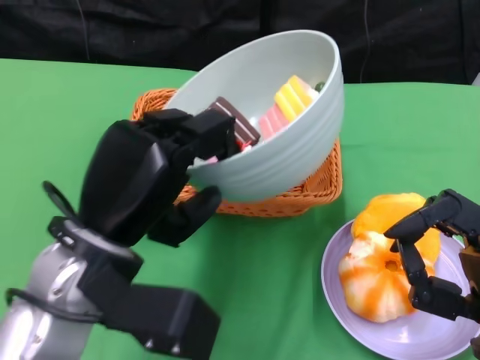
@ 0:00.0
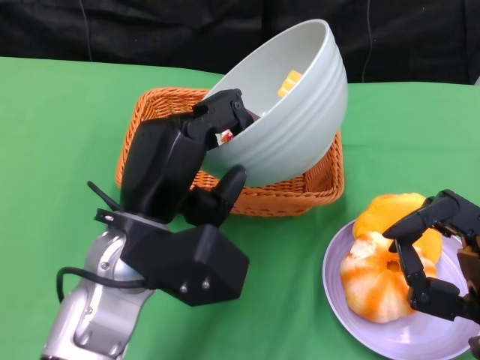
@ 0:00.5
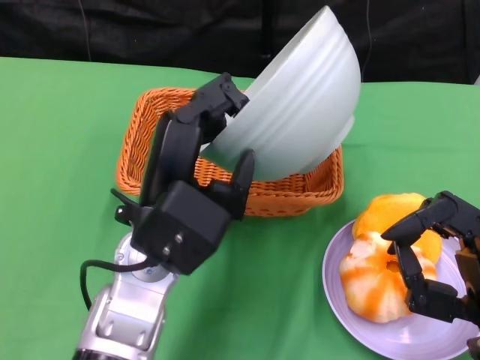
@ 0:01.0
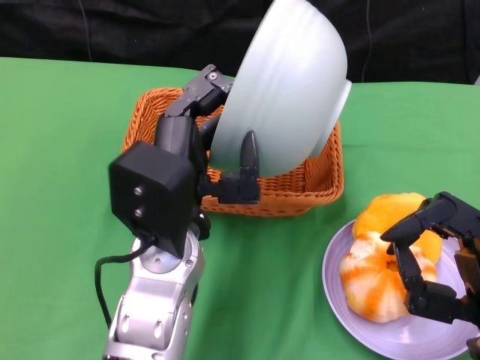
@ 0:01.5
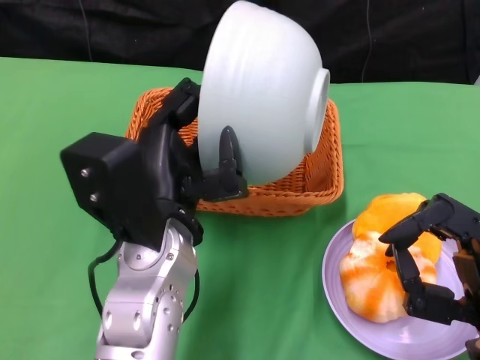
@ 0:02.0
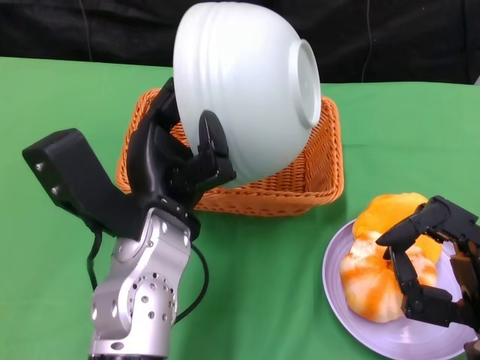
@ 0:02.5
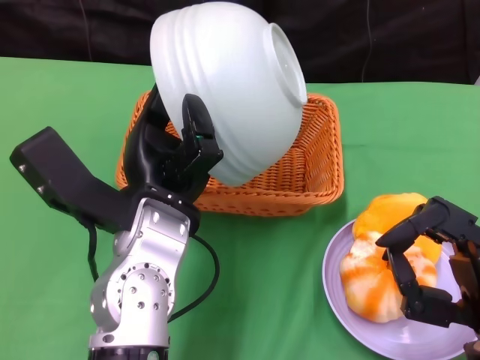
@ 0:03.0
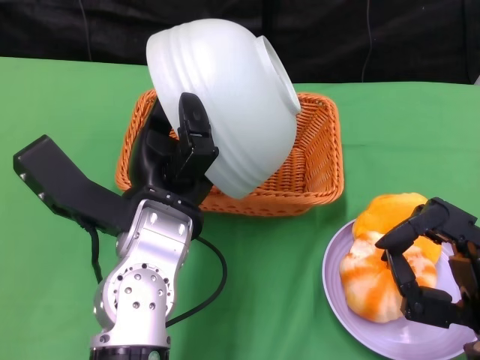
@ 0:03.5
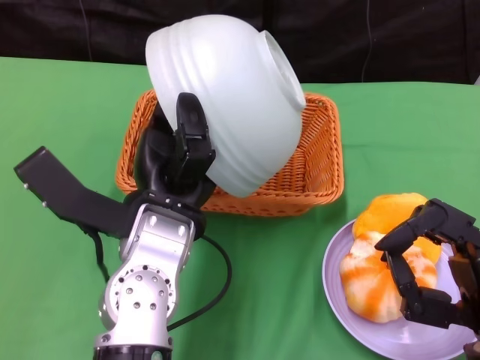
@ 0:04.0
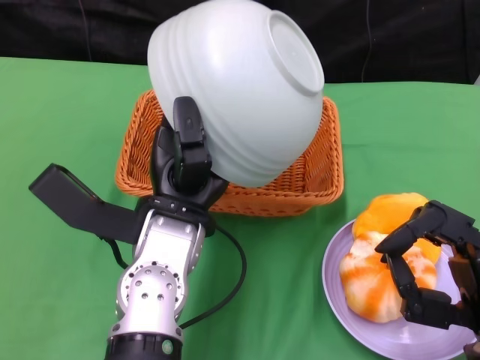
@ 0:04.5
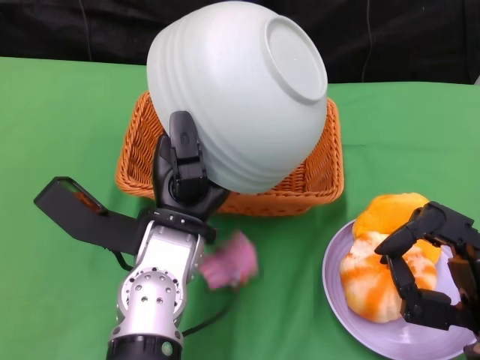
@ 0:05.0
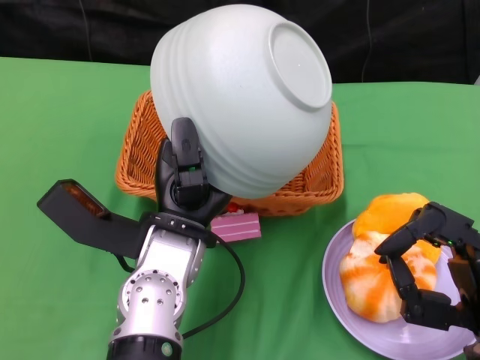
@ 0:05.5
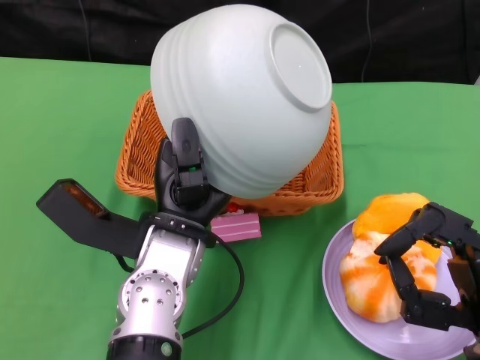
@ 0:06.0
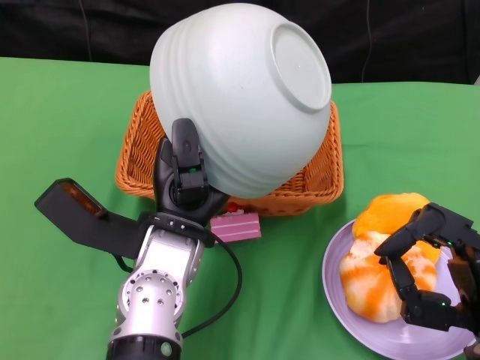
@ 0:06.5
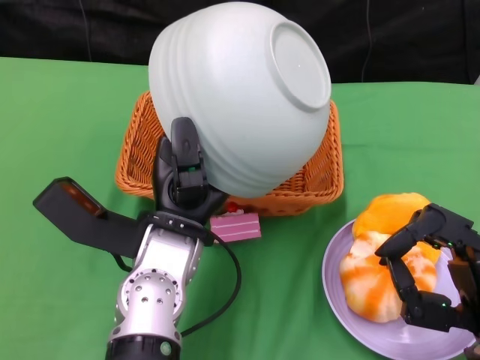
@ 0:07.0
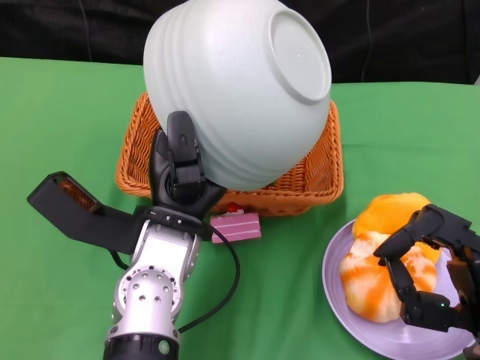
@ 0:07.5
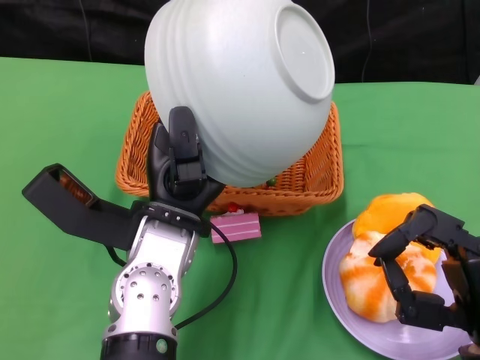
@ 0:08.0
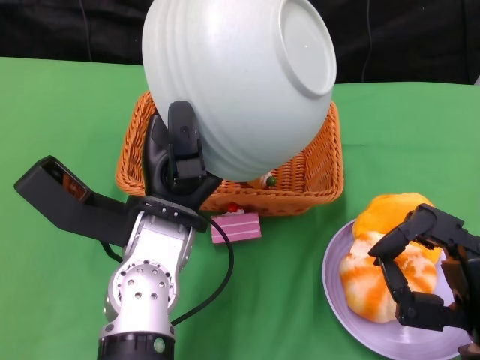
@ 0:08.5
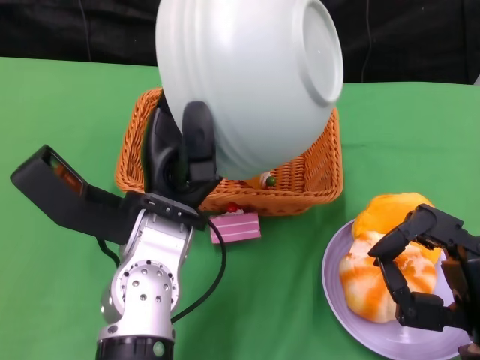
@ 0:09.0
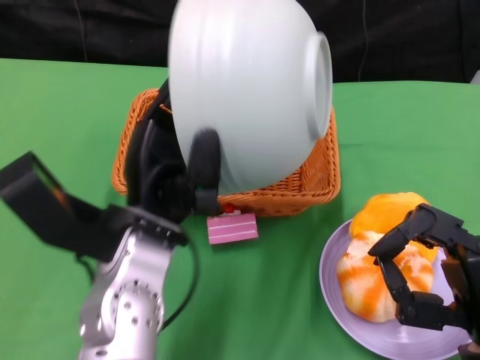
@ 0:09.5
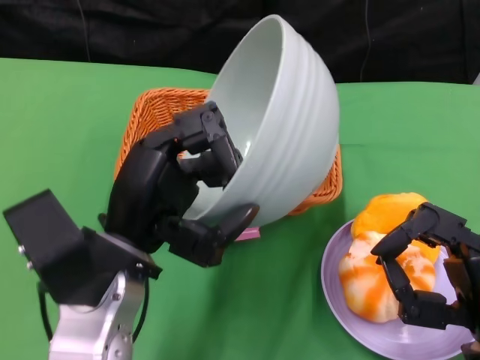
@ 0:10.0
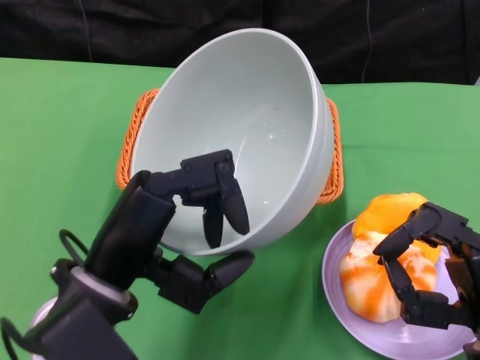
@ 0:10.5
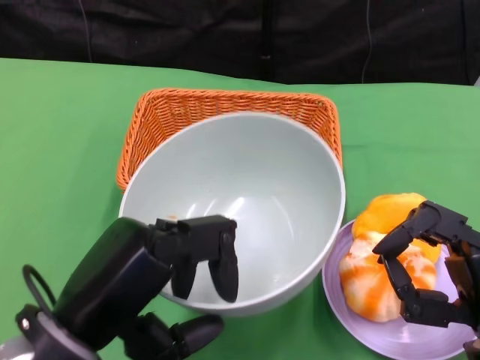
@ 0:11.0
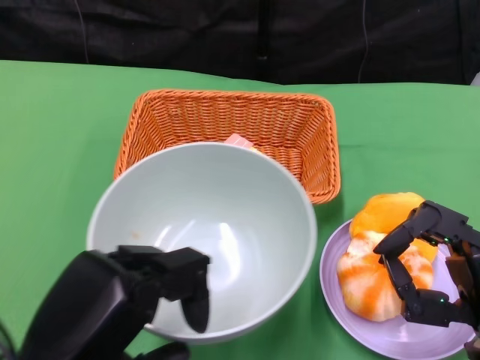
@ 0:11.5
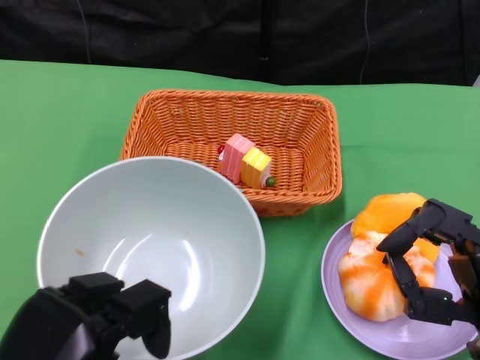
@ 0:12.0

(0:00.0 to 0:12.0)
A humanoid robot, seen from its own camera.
Step, 0:00.0 - 0:09.0: Pour the cake into the basket with the left gripper.
0:00.0 - 0:02.0: The left hand goes about 5 cm to the right.
0:06.0 - 0:08.0: The hands make only small movements.
0:08.0 - 0:10.0: The left hand shifts about 5 cm to the left.
0:10.0 - 0:12.0: The left hand goes roughly 15 cm backward and to the left.

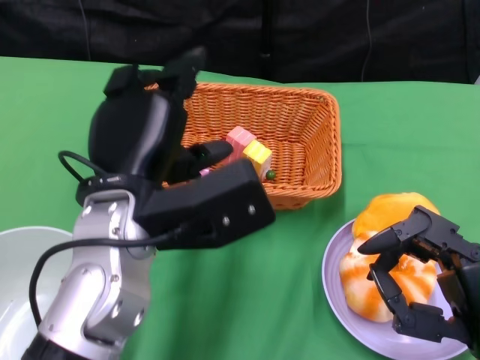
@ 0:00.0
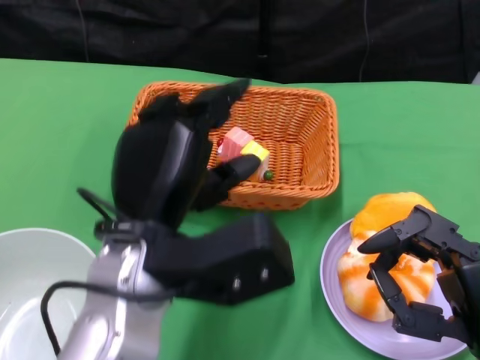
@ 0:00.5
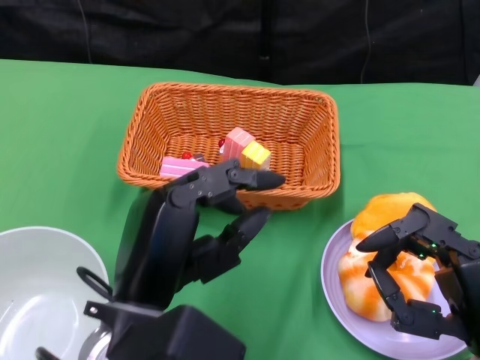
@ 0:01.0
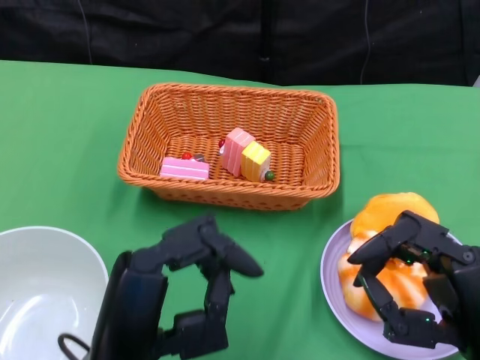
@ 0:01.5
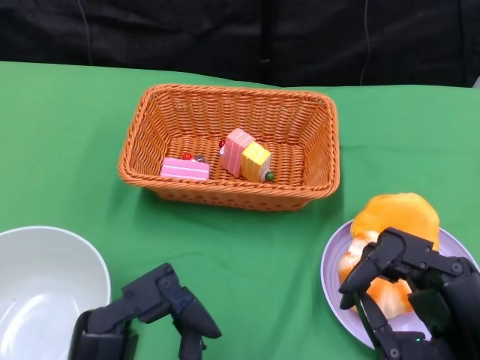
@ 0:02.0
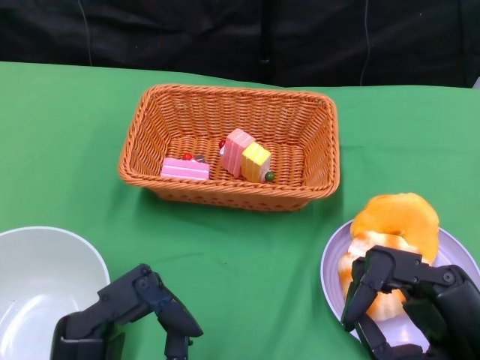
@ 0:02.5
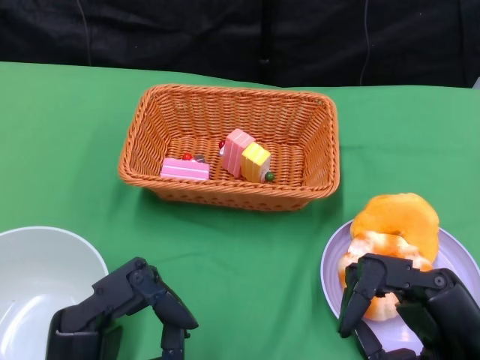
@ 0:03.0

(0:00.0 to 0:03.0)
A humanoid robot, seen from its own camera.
0:00.0 - 0:01.5: The left hand goes about 10 cm backward.
0:01.5 - 0:03.0: The hands make only small movements.

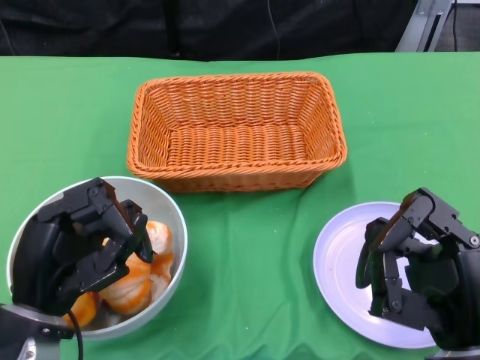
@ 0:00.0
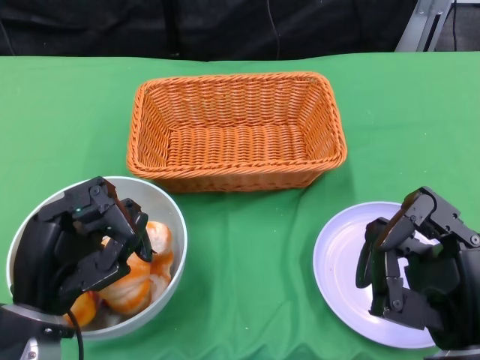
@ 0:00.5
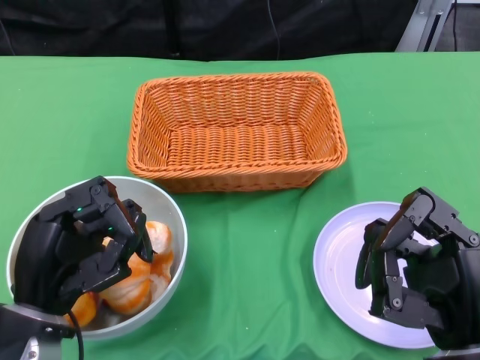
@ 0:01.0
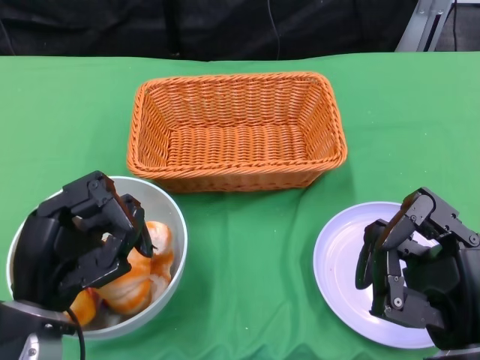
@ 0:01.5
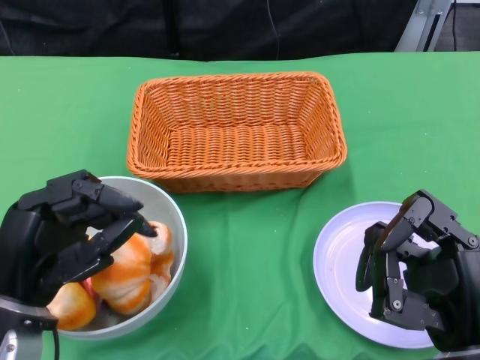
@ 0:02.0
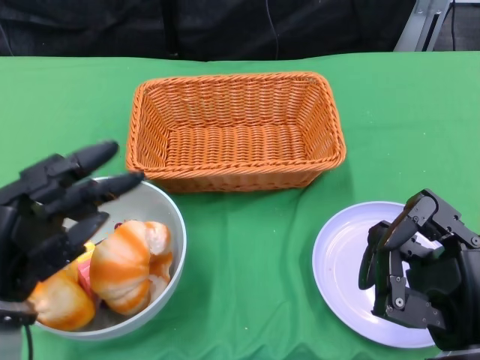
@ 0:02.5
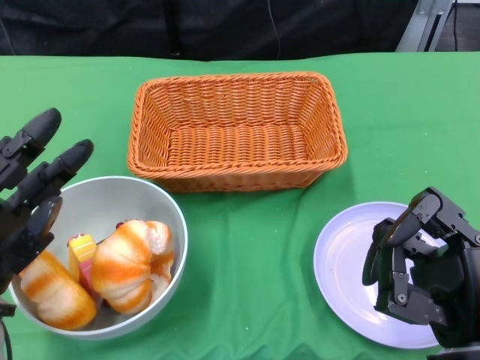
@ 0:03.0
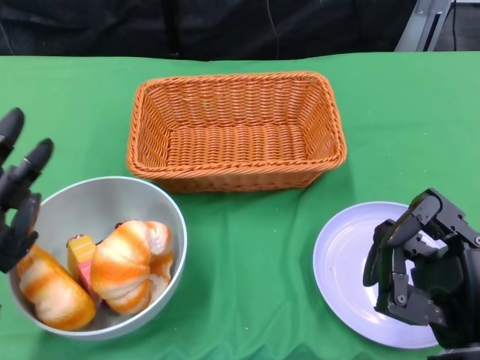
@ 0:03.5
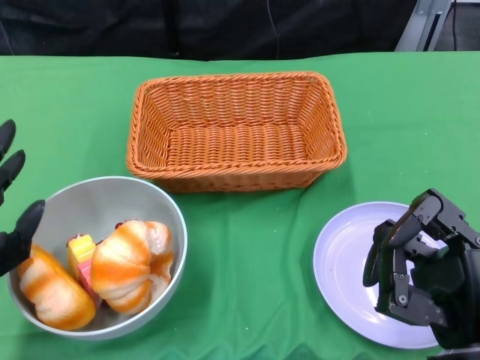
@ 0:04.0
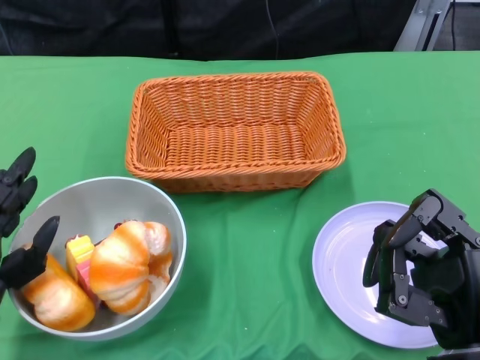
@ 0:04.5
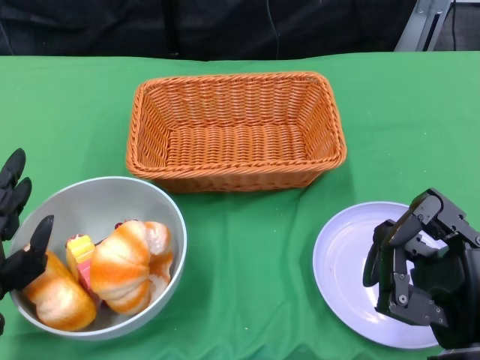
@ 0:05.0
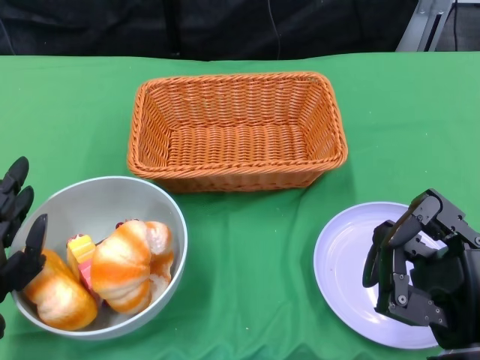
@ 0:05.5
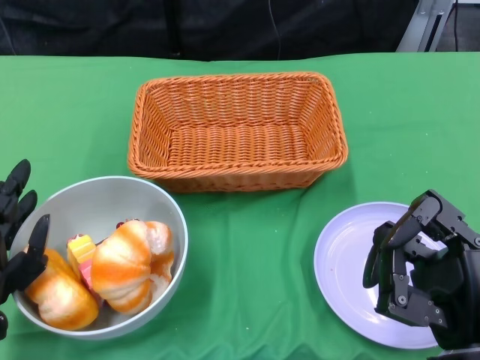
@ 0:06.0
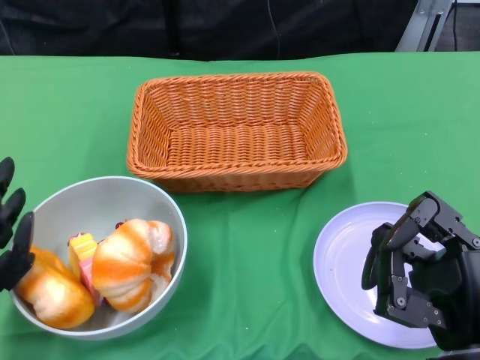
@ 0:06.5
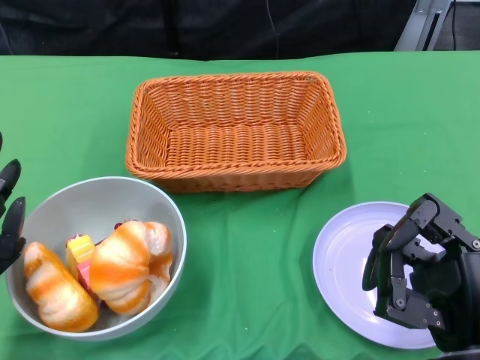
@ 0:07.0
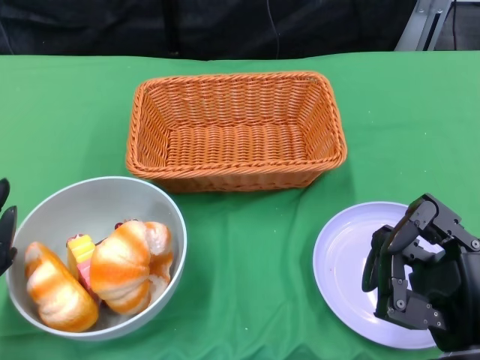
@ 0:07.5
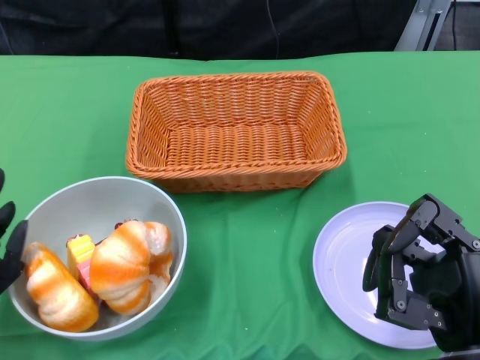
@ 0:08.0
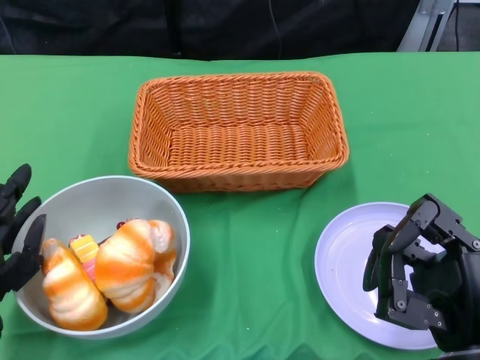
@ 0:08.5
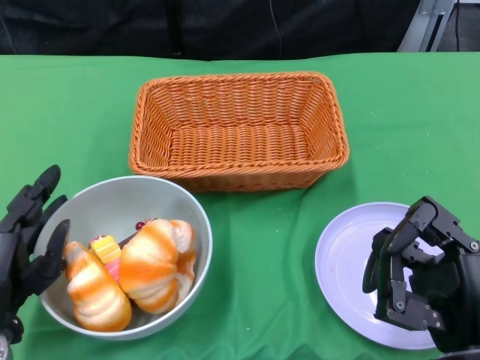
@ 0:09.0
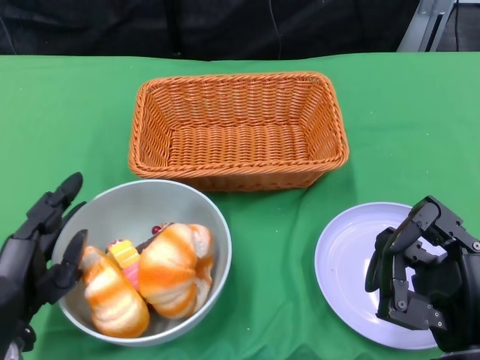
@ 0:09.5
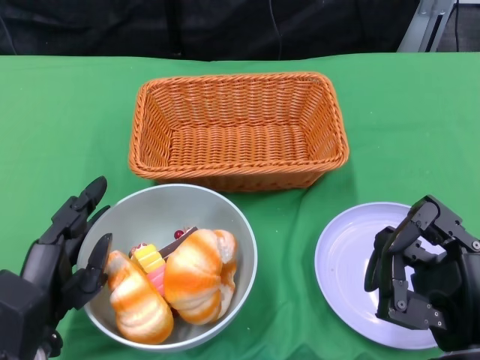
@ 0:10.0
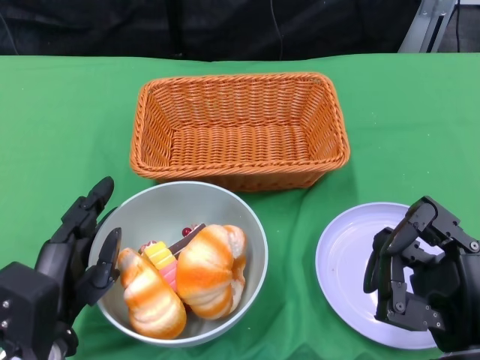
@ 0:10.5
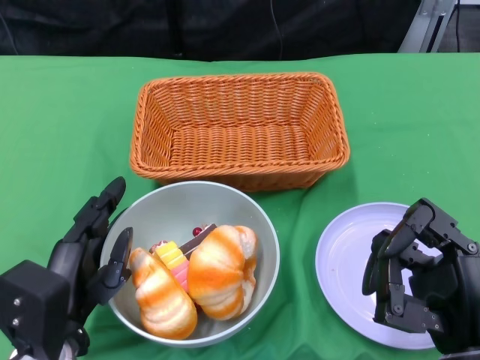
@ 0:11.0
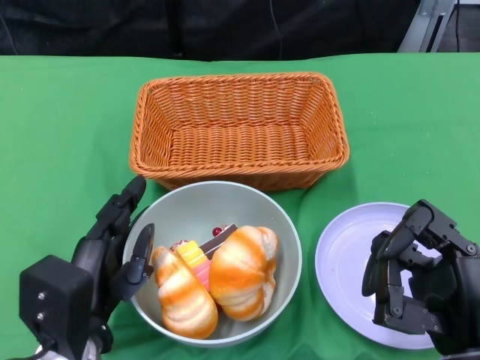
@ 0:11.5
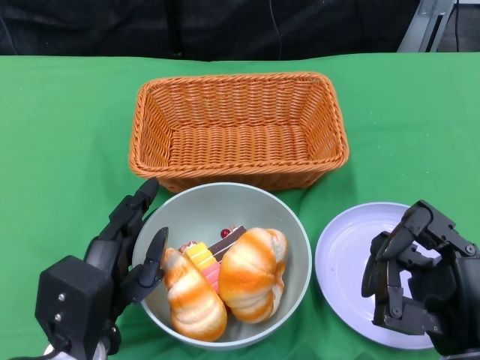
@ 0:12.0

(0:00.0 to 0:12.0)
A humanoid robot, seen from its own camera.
0:02.0 - 0:04.0: The left hand shifts some 5 cm to the left.
0:04.0 - 0:08.0: The hands move only a little.
0:08.0 - 0:10.0: The left hand heads to the right, covering roughly 5 cm.
0:10.0 - 0:12.0: The left hand goes roughly 5 cm to the right.
